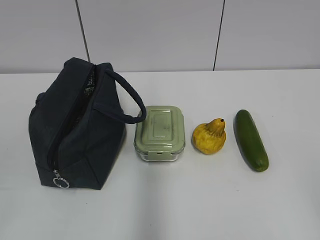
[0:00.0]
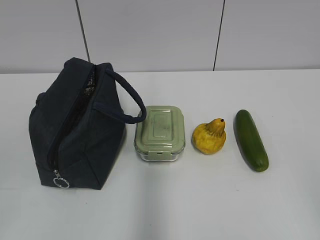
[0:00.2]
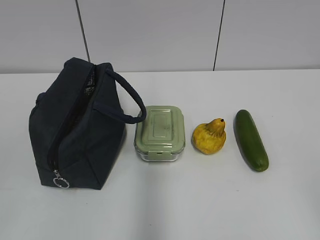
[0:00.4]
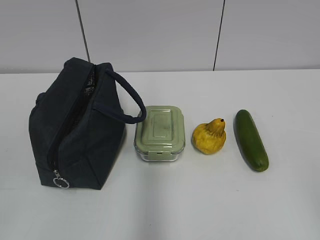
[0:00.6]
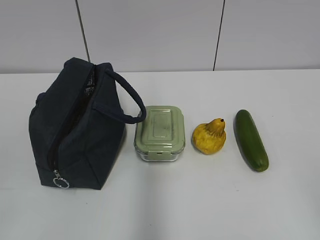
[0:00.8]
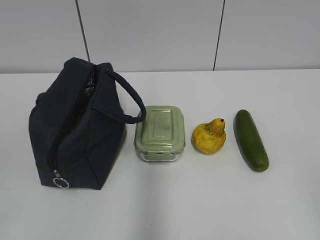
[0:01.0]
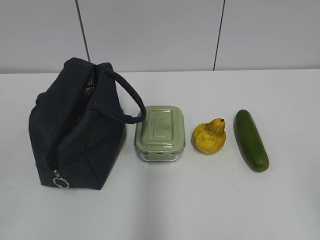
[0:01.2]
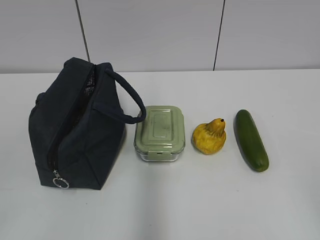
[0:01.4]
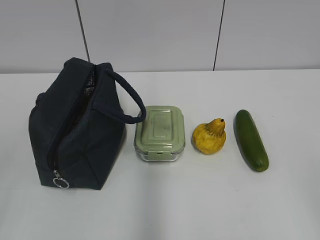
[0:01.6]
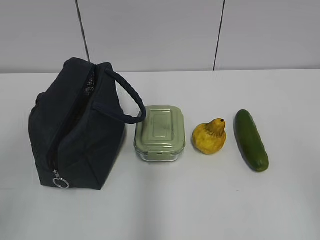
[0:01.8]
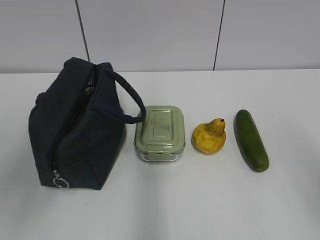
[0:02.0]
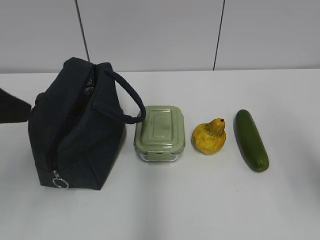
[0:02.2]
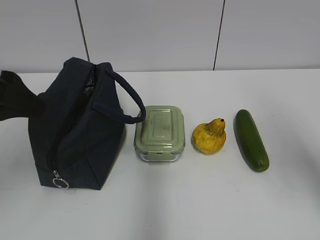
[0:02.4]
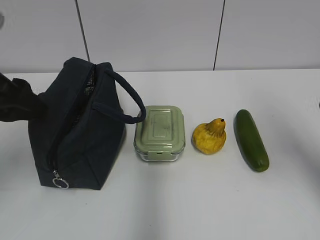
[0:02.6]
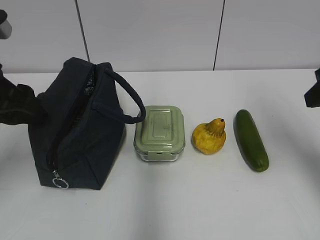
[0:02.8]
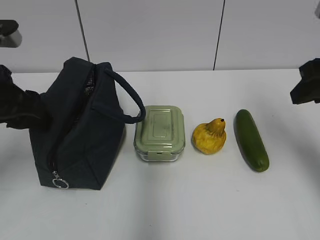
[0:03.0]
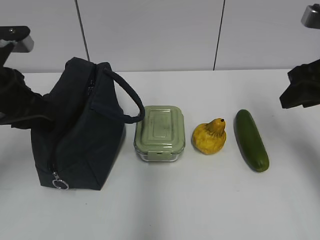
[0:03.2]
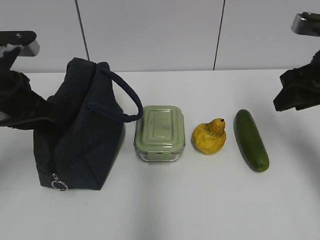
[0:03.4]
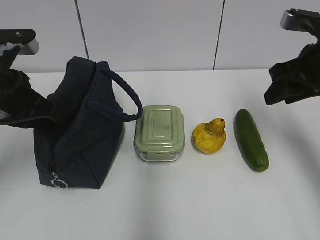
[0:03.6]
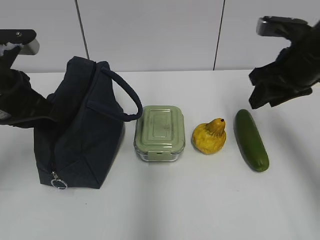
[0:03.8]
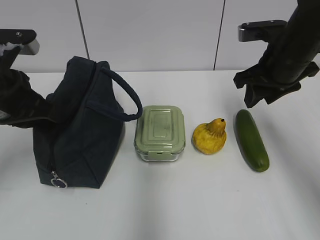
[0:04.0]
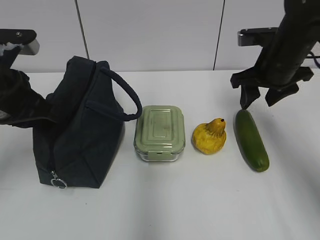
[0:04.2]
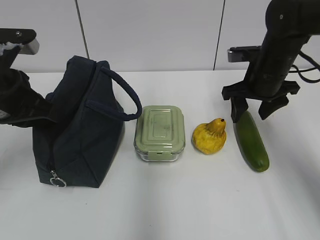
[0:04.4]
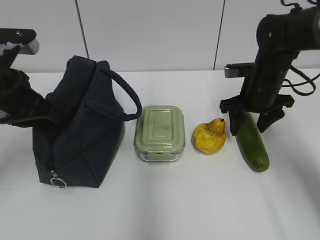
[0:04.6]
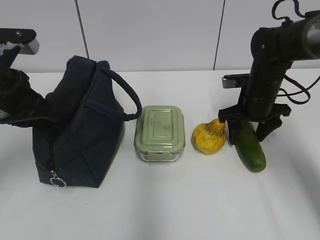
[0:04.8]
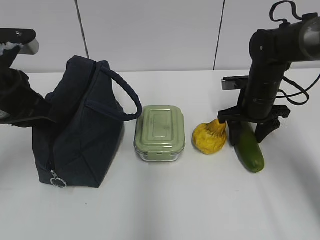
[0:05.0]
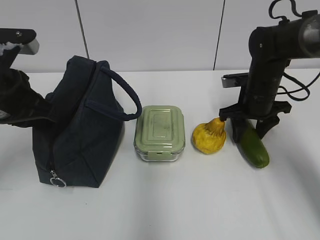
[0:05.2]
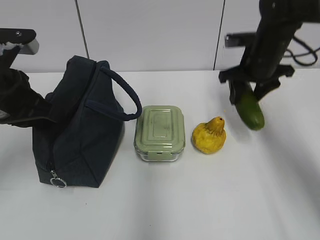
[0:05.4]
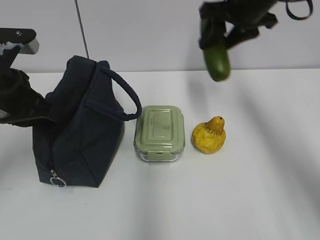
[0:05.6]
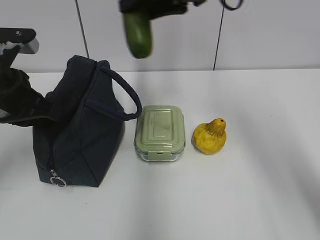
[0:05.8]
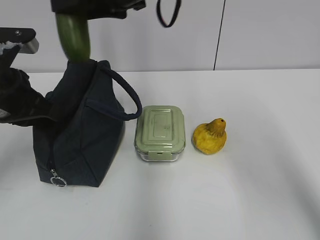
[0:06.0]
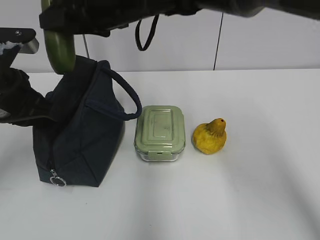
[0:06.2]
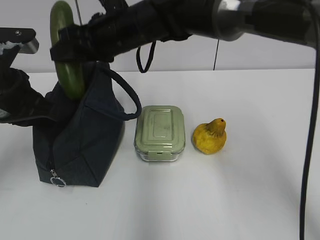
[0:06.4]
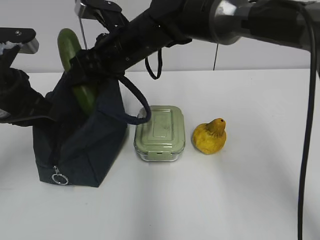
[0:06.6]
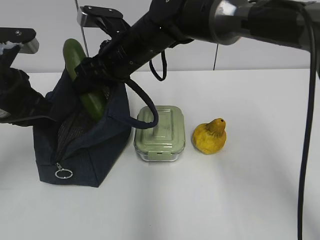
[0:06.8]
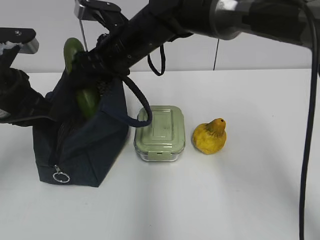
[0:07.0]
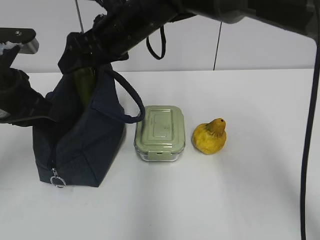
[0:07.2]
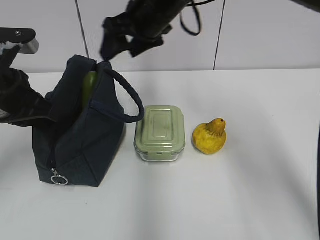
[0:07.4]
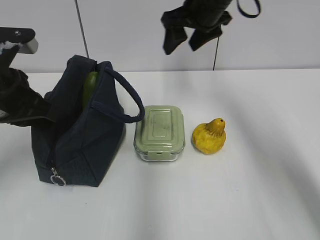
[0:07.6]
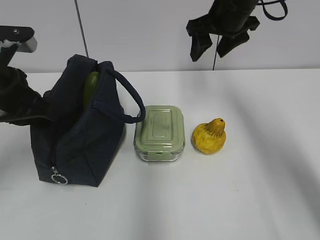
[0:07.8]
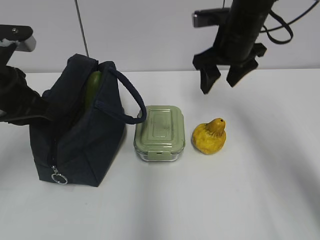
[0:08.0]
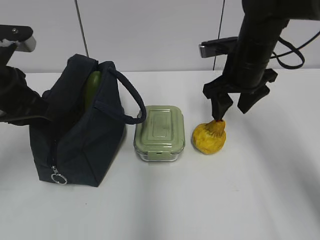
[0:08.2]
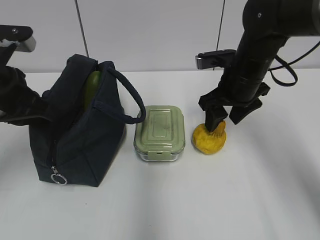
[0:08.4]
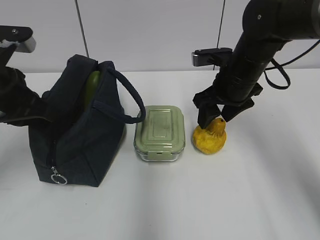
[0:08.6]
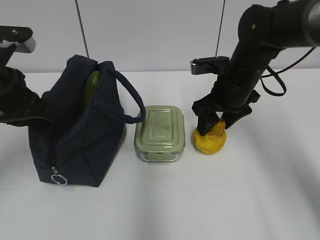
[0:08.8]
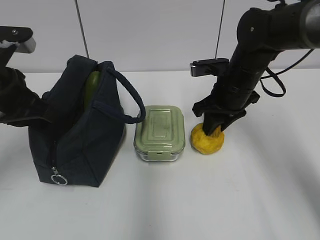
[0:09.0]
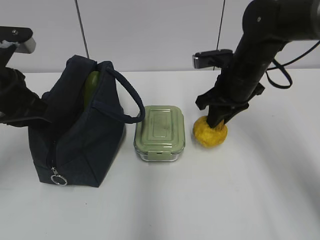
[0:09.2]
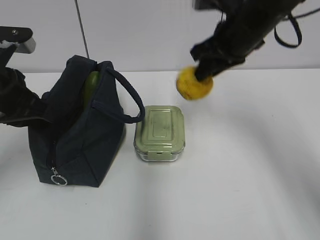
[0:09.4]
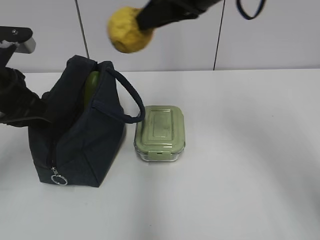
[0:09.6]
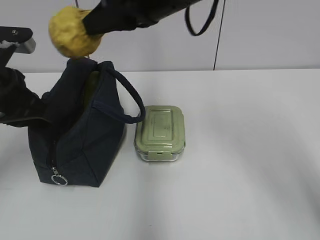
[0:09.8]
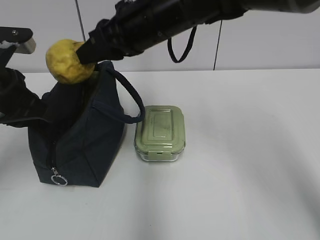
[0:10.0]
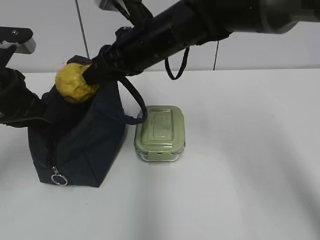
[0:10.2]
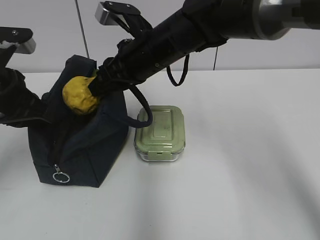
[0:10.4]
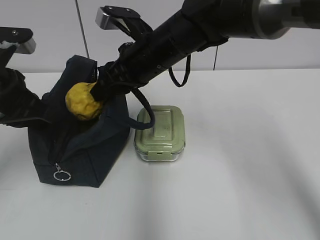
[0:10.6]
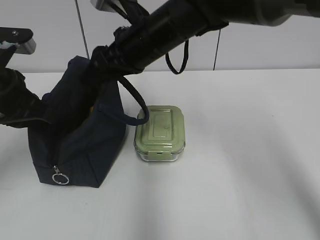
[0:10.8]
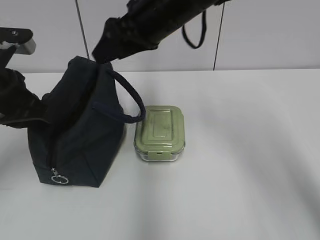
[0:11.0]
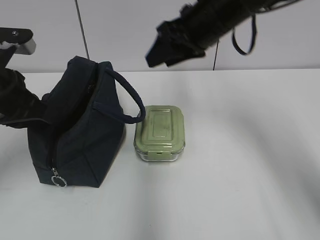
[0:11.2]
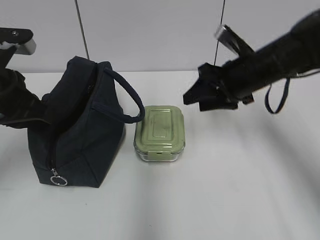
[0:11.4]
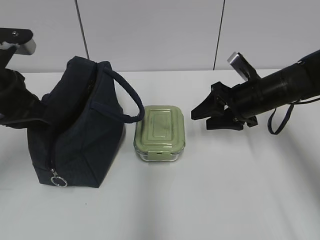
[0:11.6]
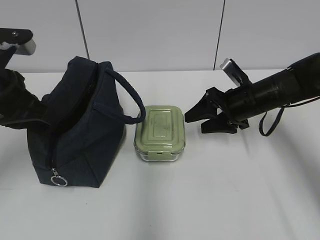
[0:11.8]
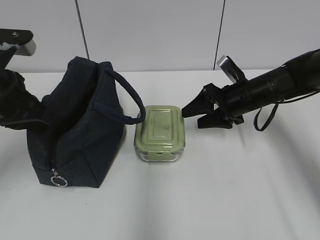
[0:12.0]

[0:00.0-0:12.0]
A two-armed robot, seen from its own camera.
0:01.6 to 0:03.0: Both grippers move forward, approximately 25 cm. The left gripper opens its fingers.
0:03.0 to 0:04.4: The right gripper heads forward, downward and to the left, covering about 20 cm. The left gripper closes.
0:04.4 to 0:06.0: The right gripper goes approximately 25 cm to the left and upward.
0:06.0 to 0:07.6: The right gripper shifts some 15 cm to the right and forward.
0:07.6 to 0:09.0: The right gripper shifts approximately 15 cm downward and backward, and closes its fingers.
0:09.0 to 0:10.4: The right gripper goes approximately 15 cm to the left and upward.
0:10.4 to 0:12.0: The right gripper travels to the right and downward by some 20 cm, and opens its fingers.

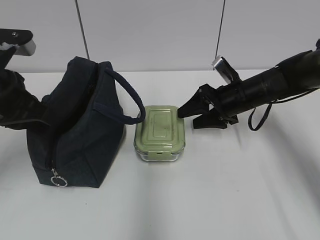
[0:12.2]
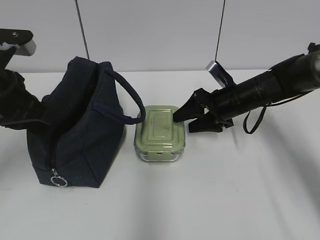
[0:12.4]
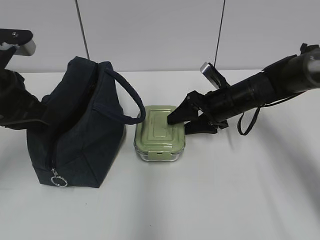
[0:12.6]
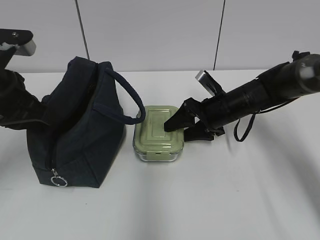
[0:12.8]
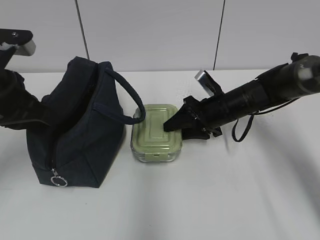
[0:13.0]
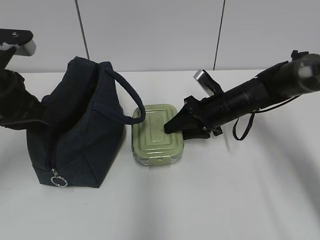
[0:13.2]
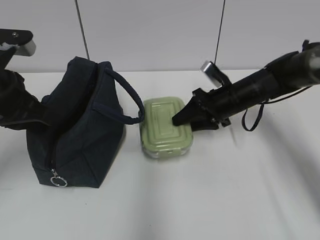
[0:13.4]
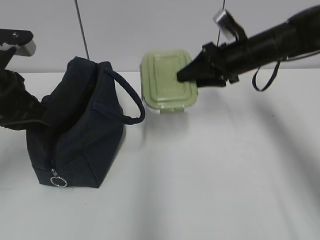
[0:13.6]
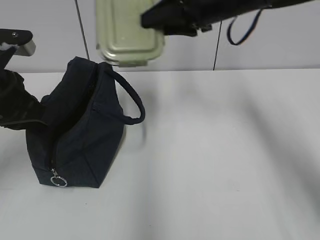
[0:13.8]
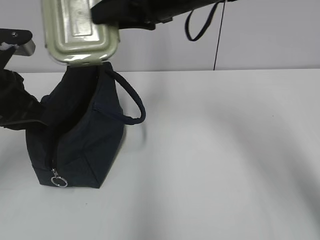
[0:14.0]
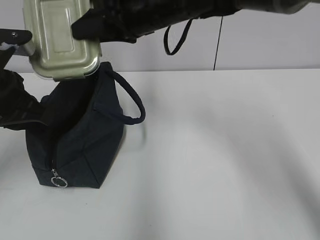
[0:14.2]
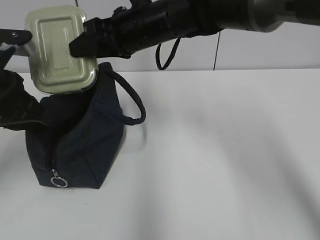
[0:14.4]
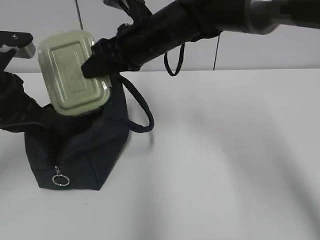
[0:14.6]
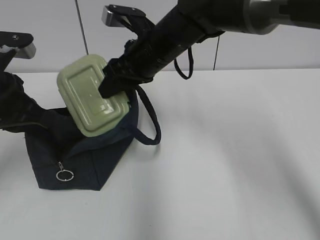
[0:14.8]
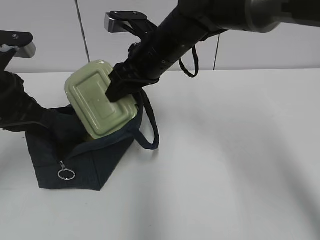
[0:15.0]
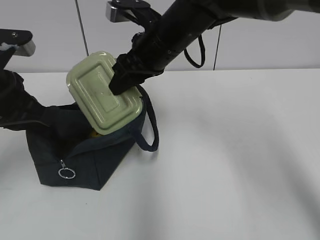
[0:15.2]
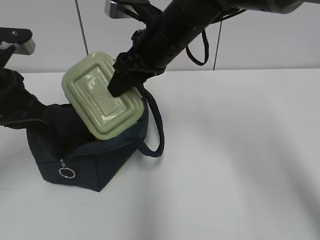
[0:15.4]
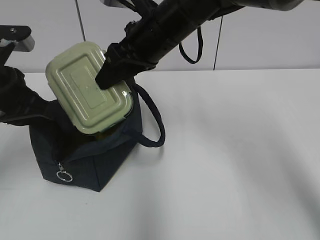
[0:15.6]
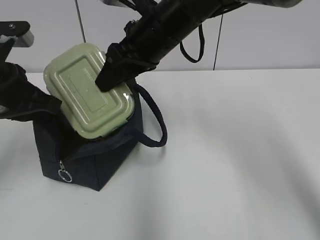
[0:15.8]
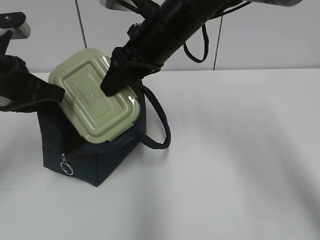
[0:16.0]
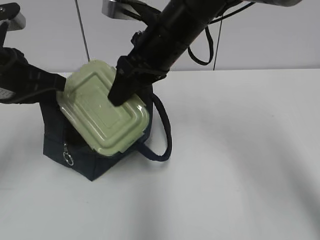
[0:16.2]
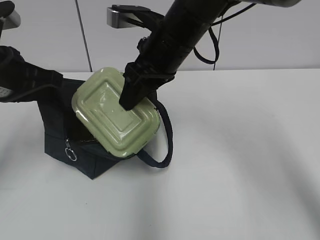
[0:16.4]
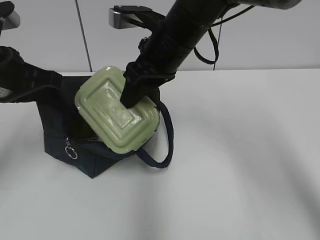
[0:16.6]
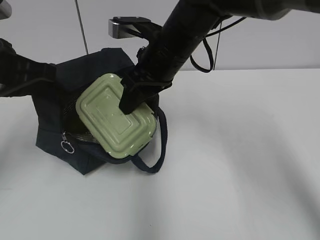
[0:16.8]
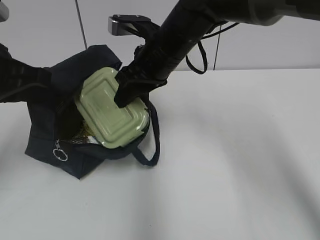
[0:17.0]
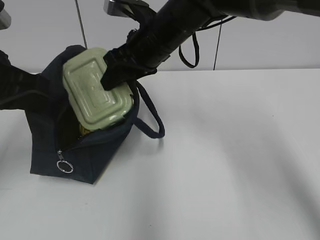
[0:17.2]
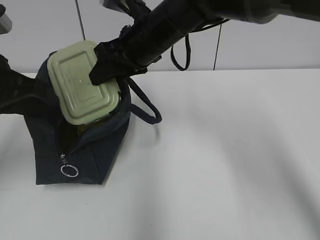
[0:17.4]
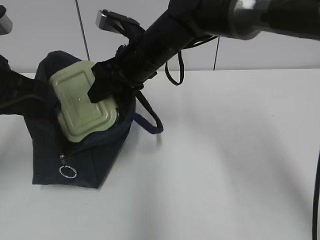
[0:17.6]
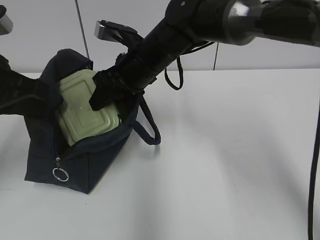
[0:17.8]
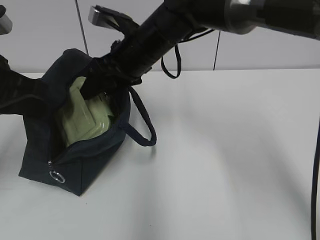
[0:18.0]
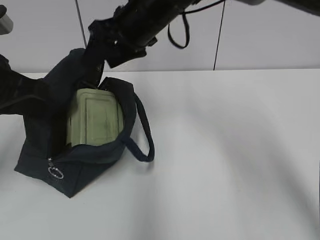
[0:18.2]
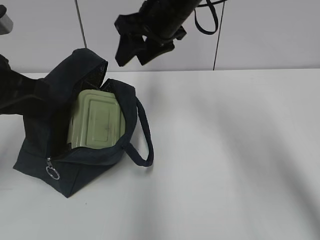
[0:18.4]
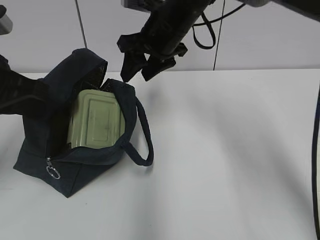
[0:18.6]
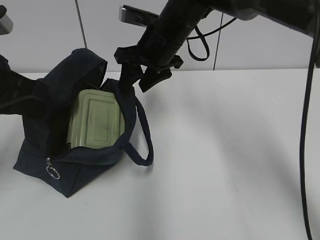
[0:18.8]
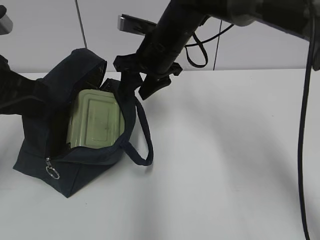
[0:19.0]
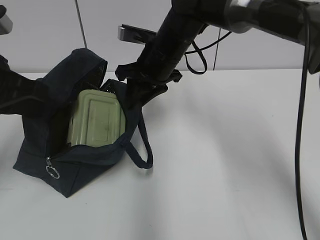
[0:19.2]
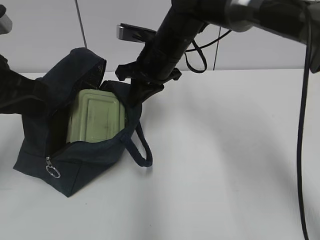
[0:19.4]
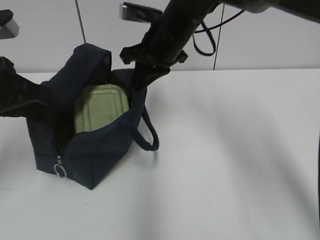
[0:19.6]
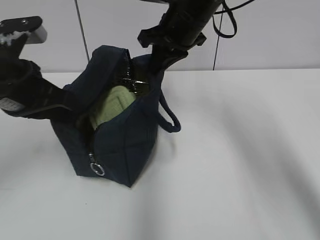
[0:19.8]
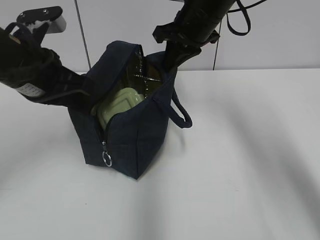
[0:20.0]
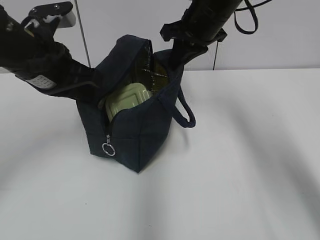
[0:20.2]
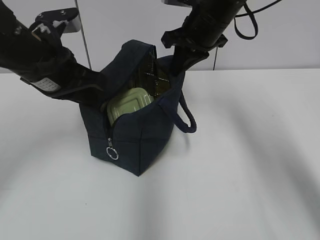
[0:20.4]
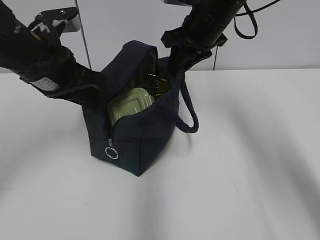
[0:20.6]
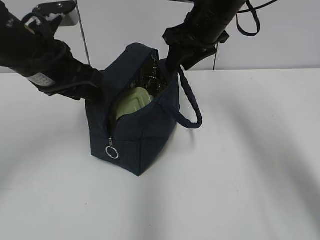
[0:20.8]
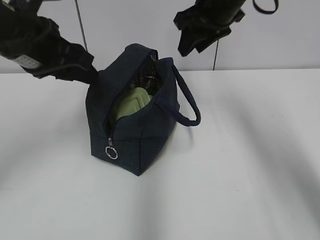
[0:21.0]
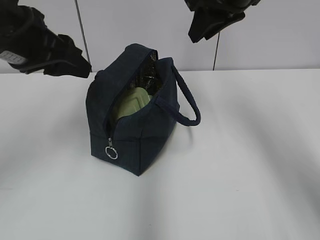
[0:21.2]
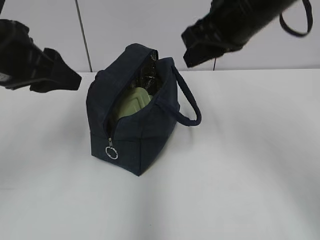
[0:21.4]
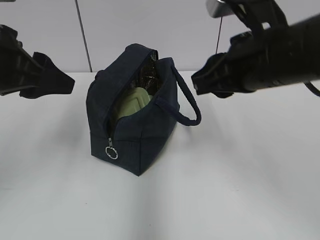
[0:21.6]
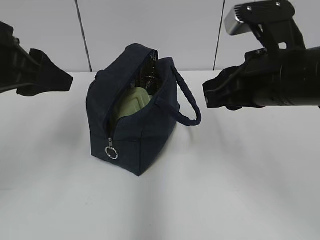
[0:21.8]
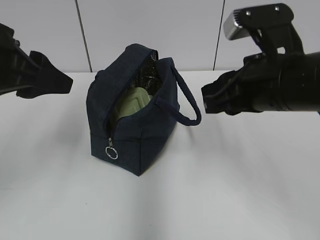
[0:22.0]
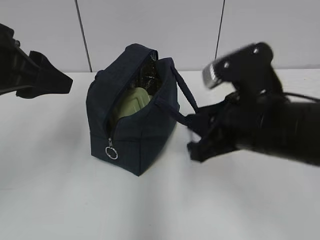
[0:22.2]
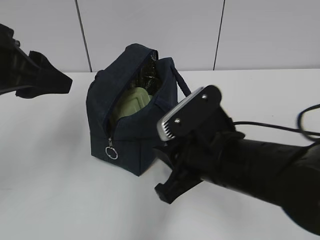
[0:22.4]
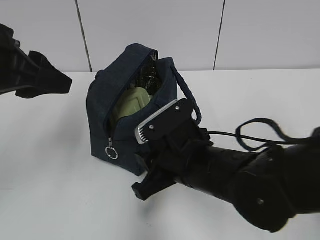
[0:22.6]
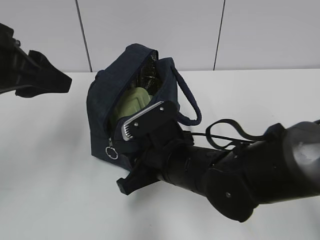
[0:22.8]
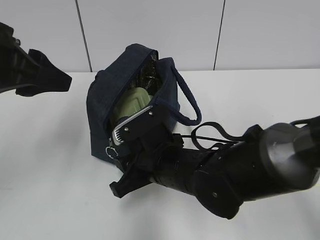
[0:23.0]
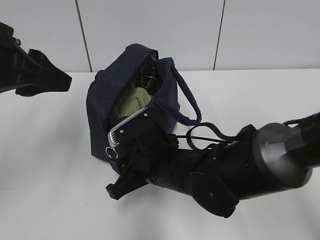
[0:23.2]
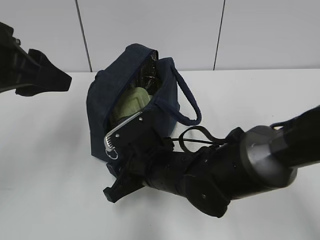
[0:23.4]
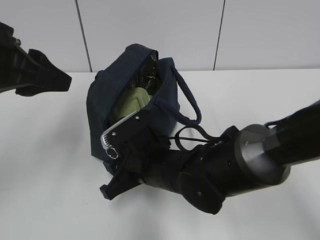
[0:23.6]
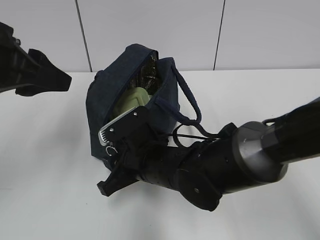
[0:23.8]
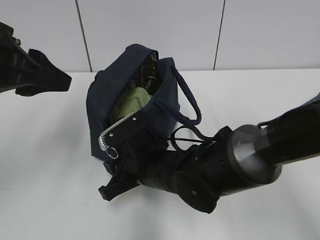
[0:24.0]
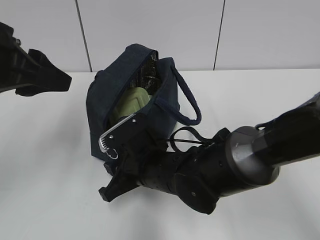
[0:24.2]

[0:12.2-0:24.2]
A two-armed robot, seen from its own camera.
0:12.2 to 0:13.8: The right gripper heads upward, covering about 20 cm, and closes up.
0:13.8 to 0:15.2: The right gripper moves to the left and downward, about 10 cm.
0:16.6 to 0:18.2: The right gripper changes place by roughly 5 cm.
0:18.2 to 0:19.8: The right gripper goes about 5 cm to the right, travels downward and back again, roughly 10 cm each way, and closes.
0:19.8 to 0:21.2: The right gripper heads upward, backward and to the right, covering roughly 10 cm, and opens its fingers; the left gripper moves upward, roughly 5 cm, and opens its fingers.
0:21.2 to 0:22.6: The right gripper travels downward and backward by some 25 cm.
0:22.6 to 0:24.2: The right gripper moves to the left, some 5 cm.
